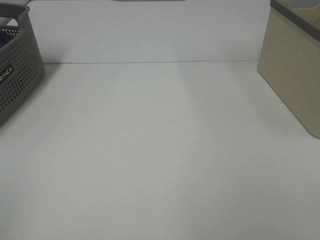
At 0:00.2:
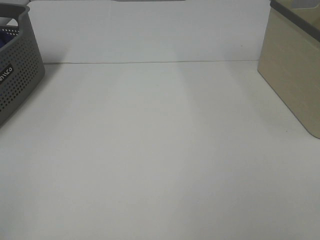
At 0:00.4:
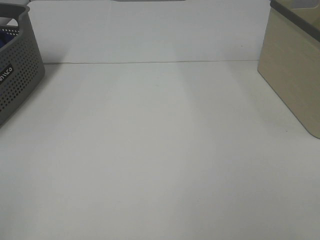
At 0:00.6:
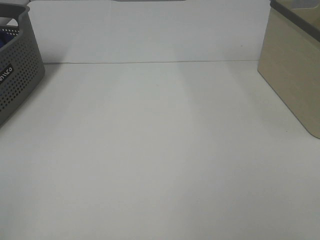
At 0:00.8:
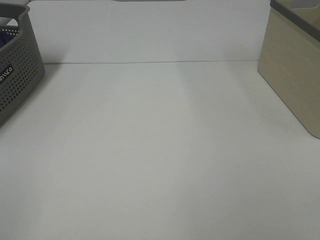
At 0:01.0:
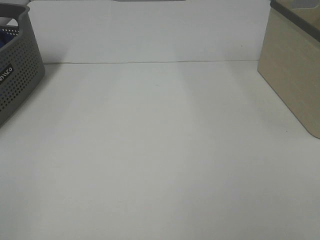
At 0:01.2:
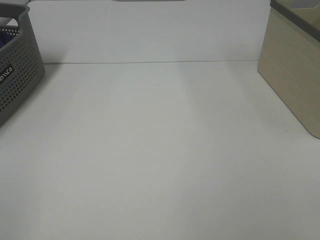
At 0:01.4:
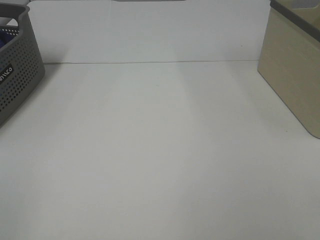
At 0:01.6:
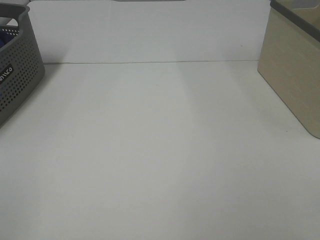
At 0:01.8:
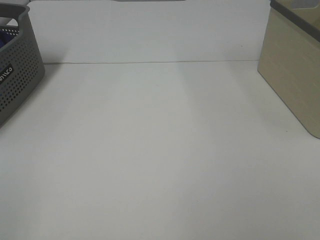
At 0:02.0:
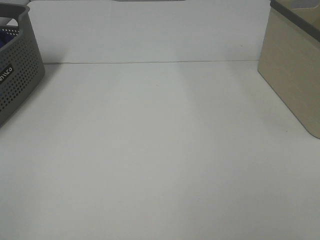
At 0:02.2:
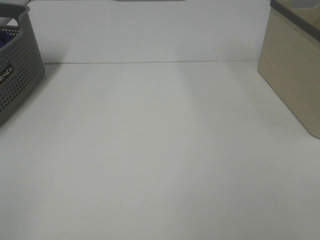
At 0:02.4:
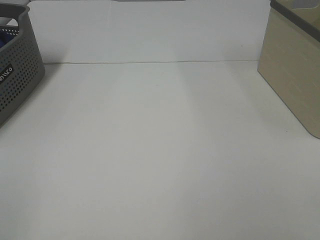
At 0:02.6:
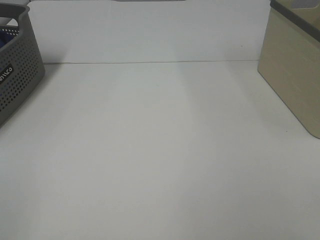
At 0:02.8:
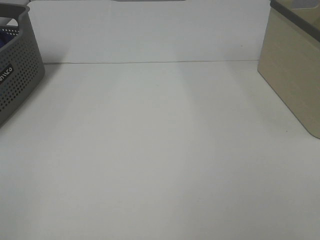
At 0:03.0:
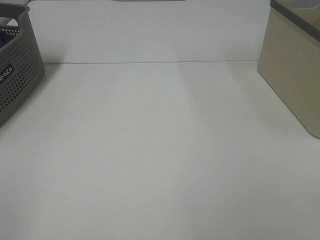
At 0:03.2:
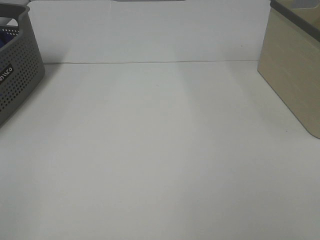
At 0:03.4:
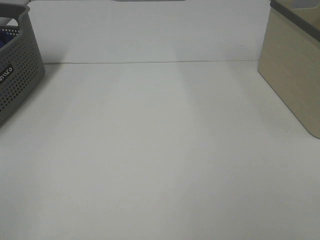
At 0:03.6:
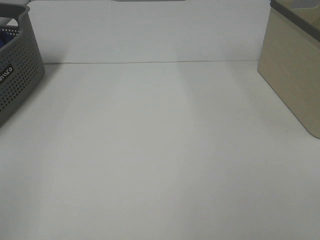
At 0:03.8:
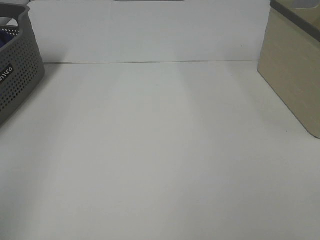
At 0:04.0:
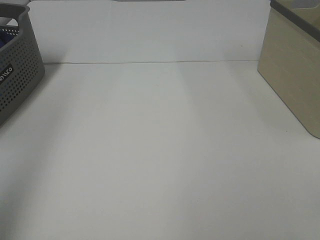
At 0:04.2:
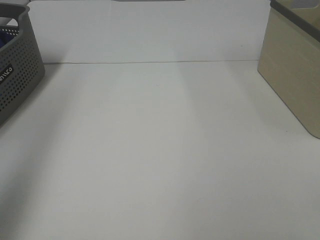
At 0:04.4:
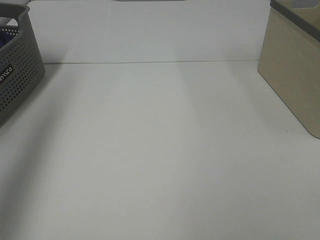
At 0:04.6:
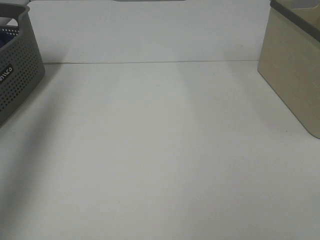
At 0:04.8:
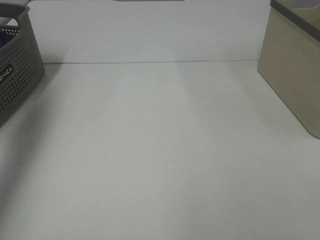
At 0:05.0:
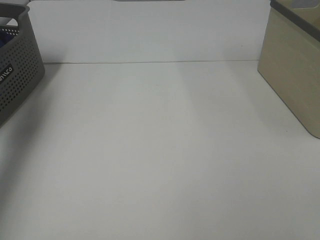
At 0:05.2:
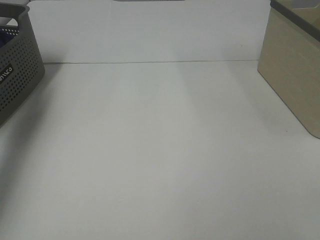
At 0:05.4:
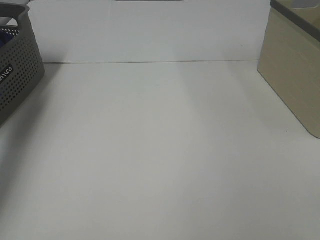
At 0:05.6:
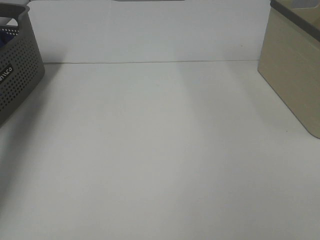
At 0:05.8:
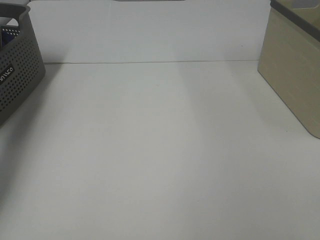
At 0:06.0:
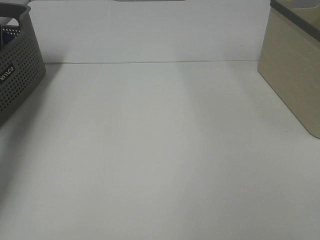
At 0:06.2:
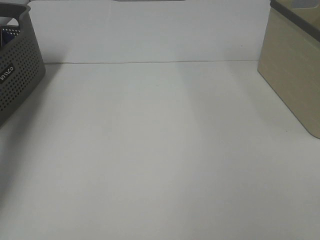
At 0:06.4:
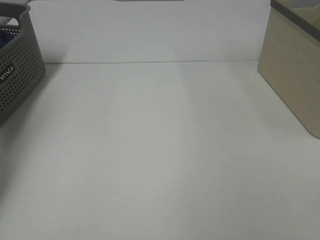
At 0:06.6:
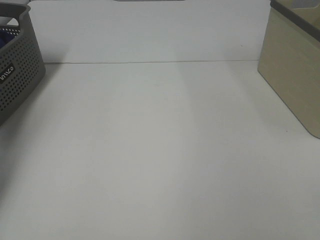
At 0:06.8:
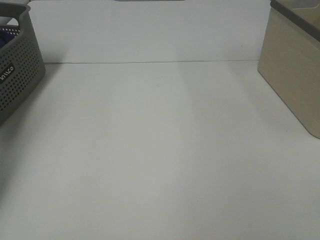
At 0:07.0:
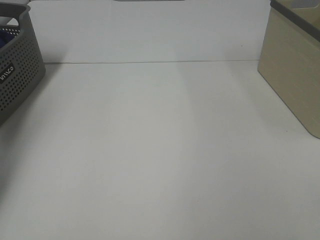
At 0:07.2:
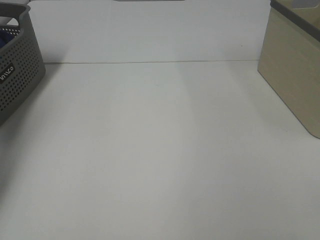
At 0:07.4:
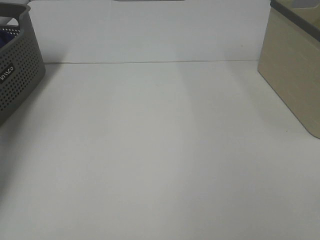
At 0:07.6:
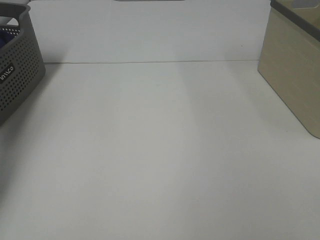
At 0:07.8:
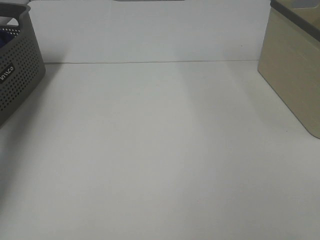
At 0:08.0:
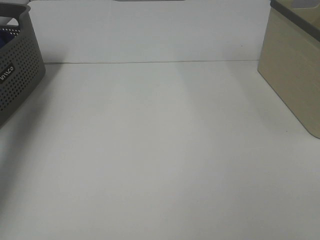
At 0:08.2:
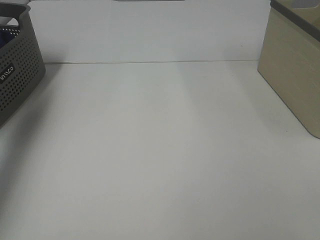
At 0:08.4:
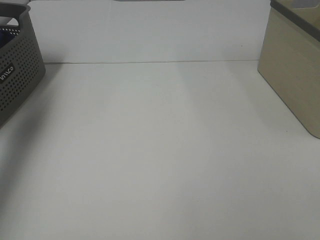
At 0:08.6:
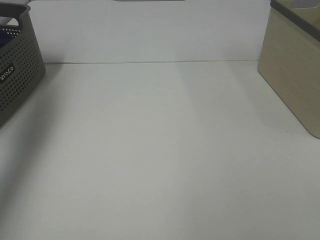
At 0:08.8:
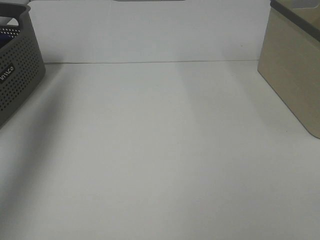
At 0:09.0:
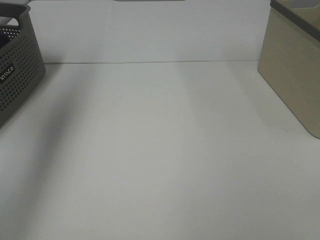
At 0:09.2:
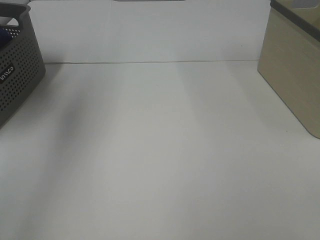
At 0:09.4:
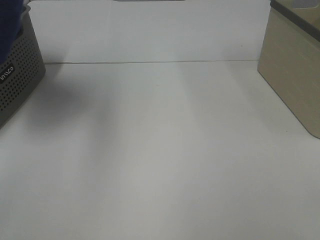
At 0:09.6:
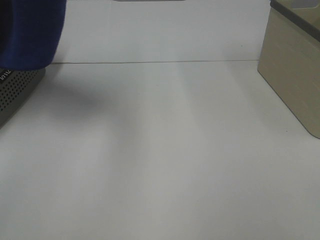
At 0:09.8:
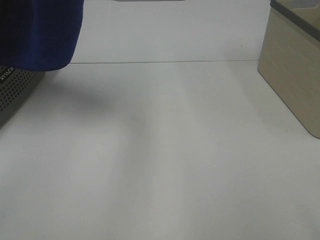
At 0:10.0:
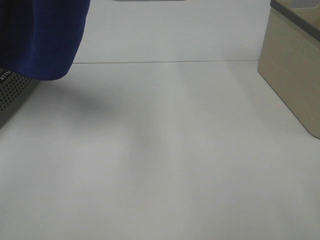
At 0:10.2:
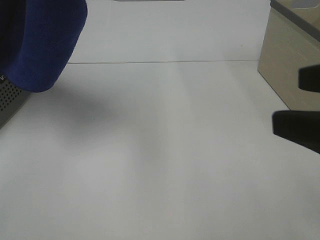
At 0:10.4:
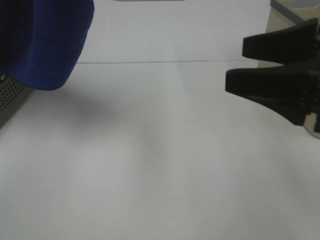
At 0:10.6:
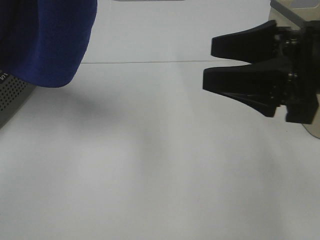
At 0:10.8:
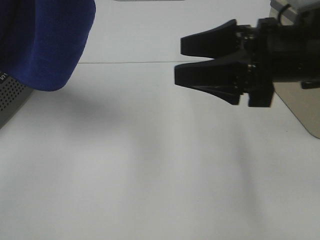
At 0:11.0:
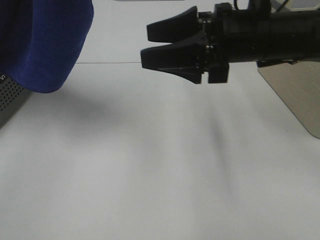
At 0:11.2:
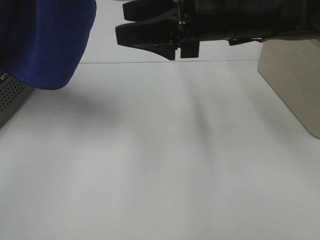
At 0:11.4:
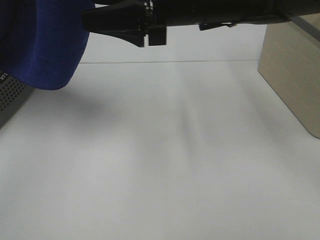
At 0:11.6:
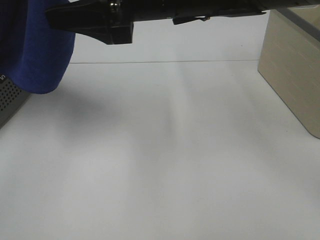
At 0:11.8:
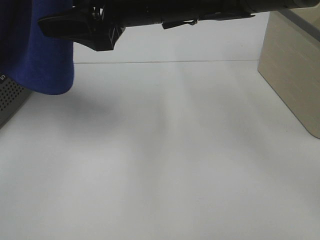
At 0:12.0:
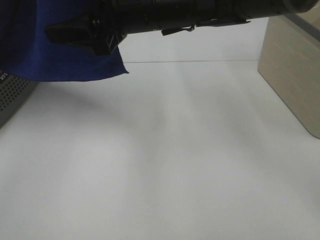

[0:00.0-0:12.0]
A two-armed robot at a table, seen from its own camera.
Task of the whole recording: Remove the towel and place it.
0:01.6 to 0:03.0: The two grippers keep their place.
0:03.0 to 0:04.4: The left gripper goes roughly 30 cm forward and upward.
0:04.4 to 0:06.0: The left gripper moves downward and forward, roughly 35 cm.
0:07.6 to 0:09.0: The left gripper travels upward and backward by about 35 cm.
0:09.0 to 0:10.4: The right gripper is displaced forward by about 20 cm; the left gripper heads to the right and backward, covering approximately 20 cm.
0:10.4 to 0:12.0: The right gripper goes about 25 cm to the left and forward.

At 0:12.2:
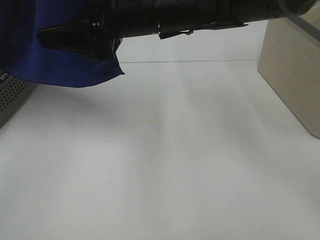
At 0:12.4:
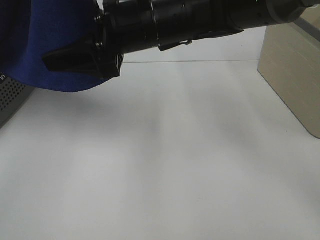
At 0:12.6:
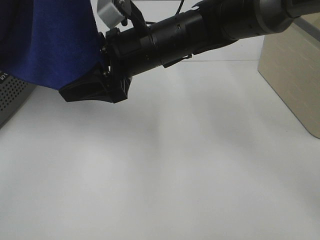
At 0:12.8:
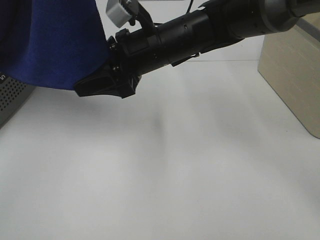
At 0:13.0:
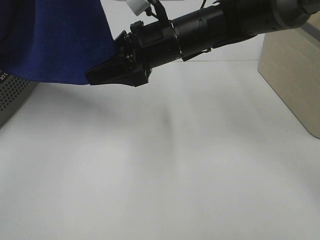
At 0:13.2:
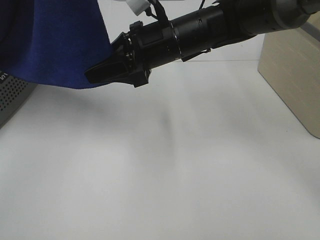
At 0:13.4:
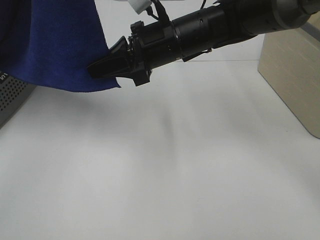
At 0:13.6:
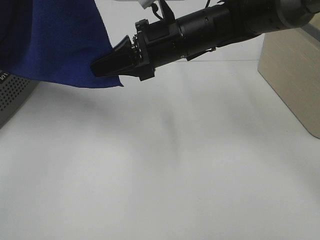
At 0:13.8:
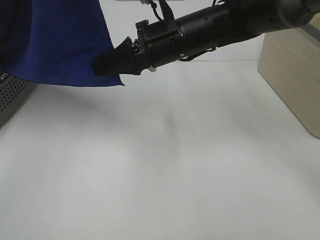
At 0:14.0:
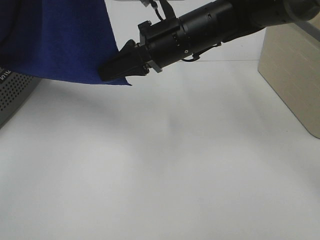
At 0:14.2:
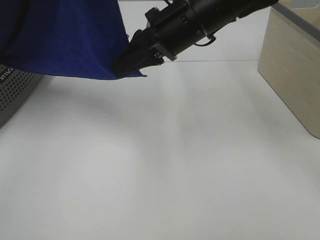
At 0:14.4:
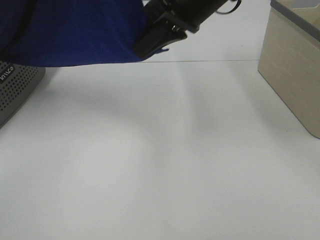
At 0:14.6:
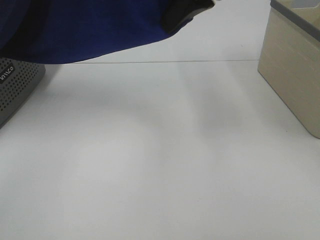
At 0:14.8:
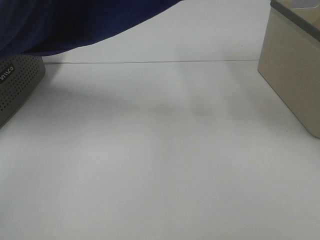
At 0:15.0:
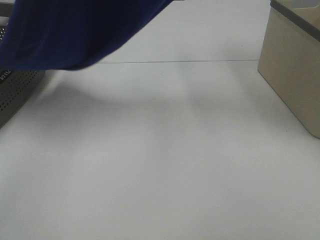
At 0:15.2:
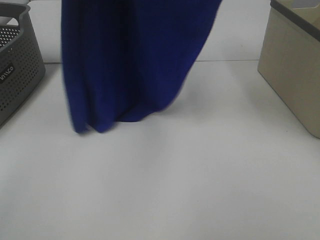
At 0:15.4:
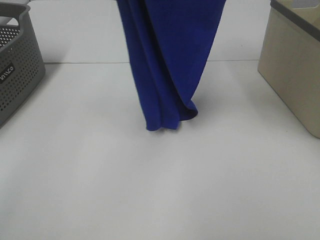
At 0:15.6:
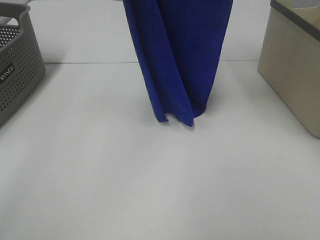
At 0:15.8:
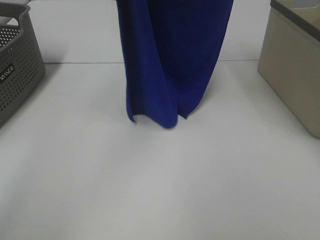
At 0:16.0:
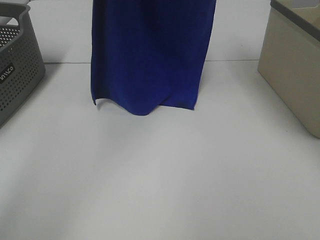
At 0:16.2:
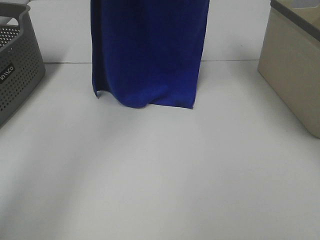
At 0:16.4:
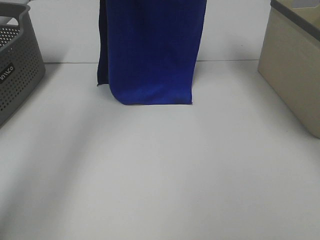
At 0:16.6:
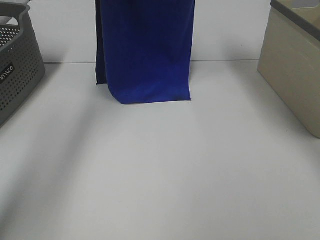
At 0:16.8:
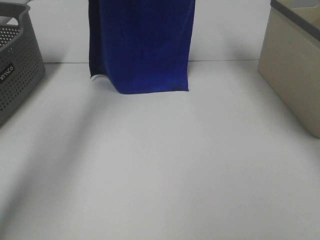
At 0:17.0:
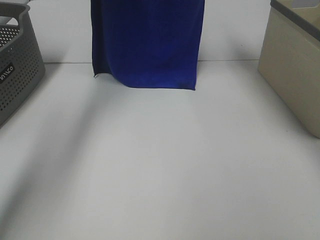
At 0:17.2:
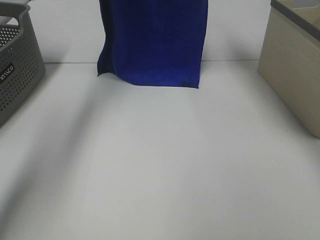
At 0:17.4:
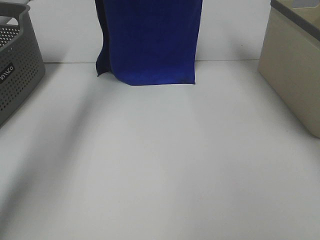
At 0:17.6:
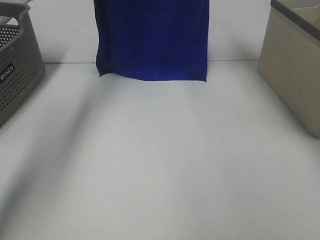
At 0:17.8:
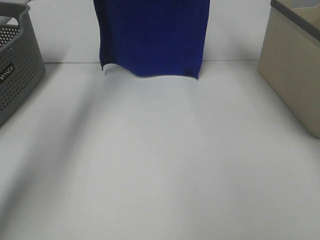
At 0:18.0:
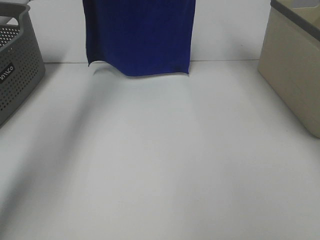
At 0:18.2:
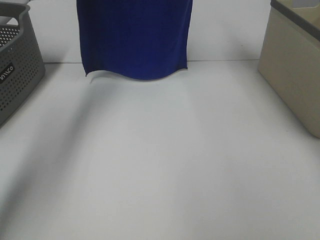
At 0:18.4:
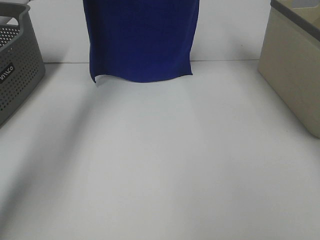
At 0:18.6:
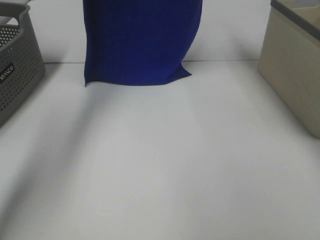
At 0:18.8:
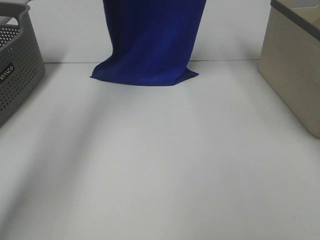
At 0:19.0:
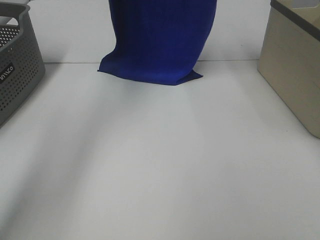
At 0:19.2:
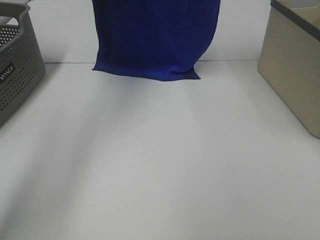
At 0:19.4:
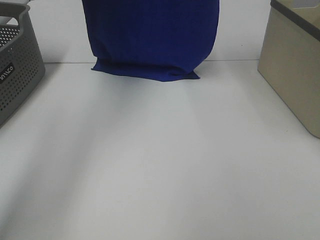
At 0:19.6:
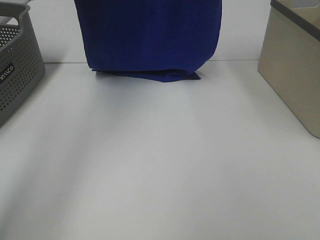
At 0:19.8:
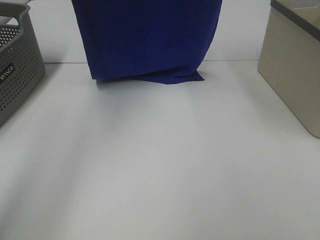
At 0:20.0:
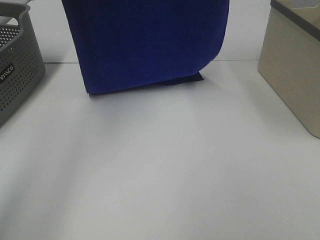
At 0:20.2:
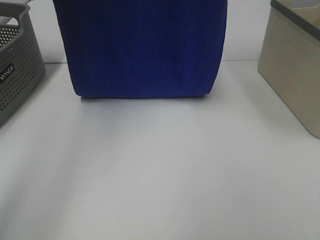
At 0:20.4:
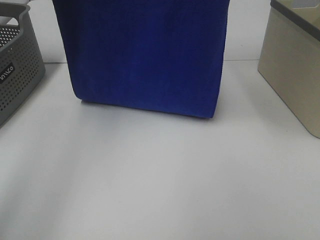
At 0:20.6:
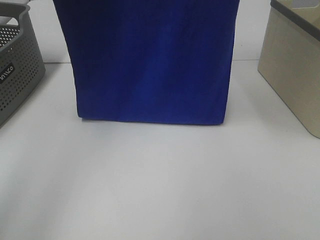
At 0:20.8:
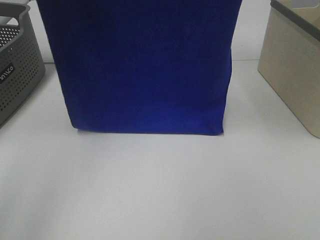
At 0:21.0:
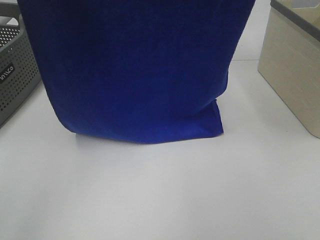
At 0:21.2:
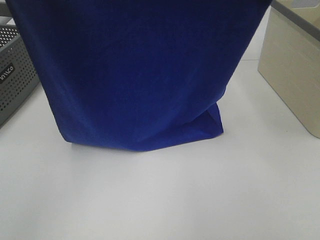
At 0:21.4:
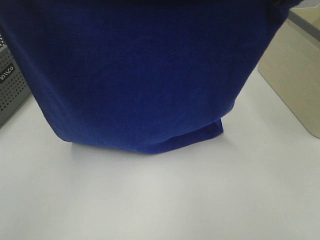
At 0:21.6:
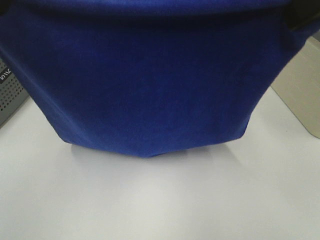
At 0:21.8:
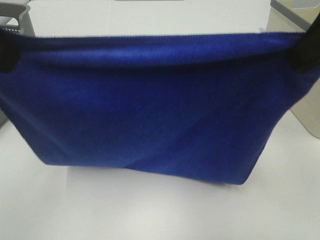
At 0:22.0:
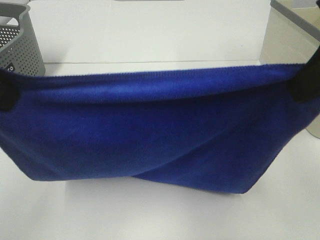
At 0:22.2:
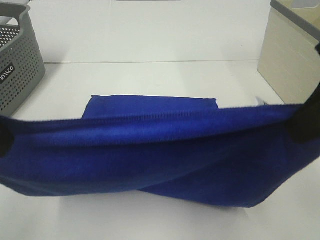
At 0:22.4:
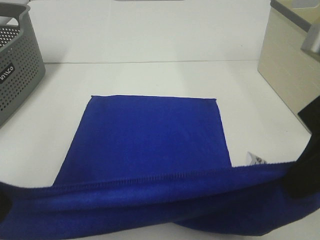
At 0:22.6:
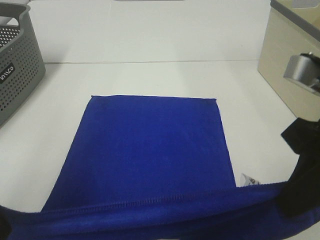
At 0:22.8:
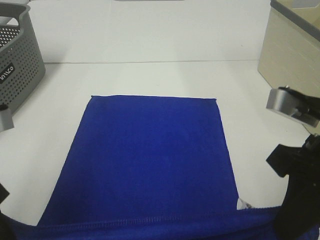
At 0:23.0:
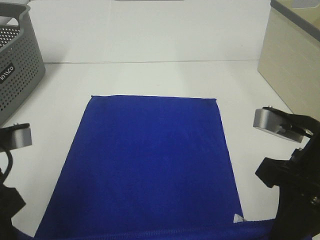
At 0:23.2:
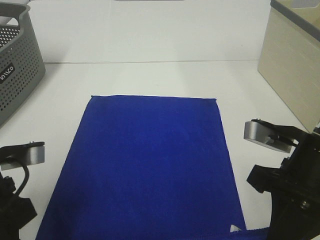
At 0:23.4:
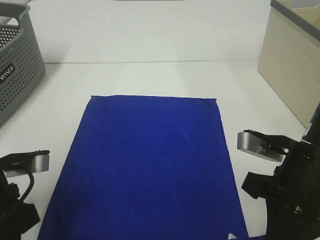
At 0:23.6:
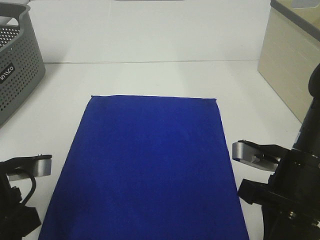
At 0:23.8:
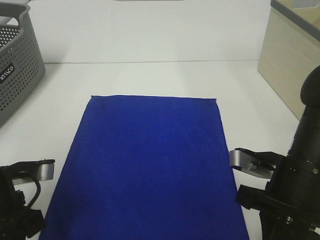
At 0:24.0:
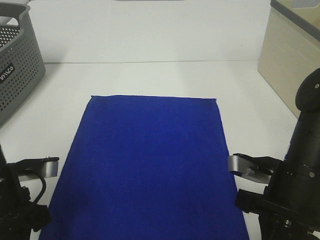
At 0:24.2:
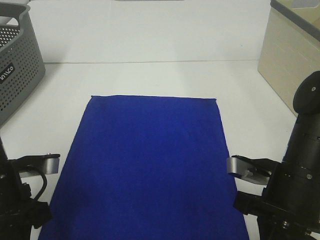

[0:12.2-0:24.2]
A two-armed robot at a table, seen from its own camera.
Task of the whole recording: Remove the towel and place it.
Step, 0:13.4 to 0:20.2: Left hand: spread the blue towel flat on the table.
Step, 0:13.4 to 0:20.2: Right hand: spread the blue towel flat on the table.
0:12.2 to 0:13.8: The right gripper shifts by some 5 cm, and closes.
0:13.8 to 0:15.2: The right gripper heads upward and to the right, covering approximately 30 cm. The left gripper moves forward, approximately 5 cm.
0:15.2 to 0:16.6: The left gripper is displaced forward and downward by roughly 20 cm; the right gripper heads forward, covering roughly 10 cm.
0:18.2 to 0:19.8: Both grippers travel together backward, about 10 cm.
0:19.8 to 0:21.2: Both grippers move backward and downward, some 15 cm.
0:21.2 to 0:22.6: Both grippers travel together downward and backward, approximately 20 cm.
0:22.6 to 0:24.2: The two grippers go approximately 15 cm downward.
